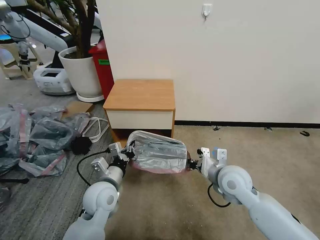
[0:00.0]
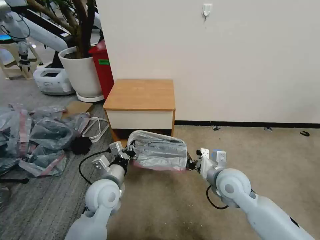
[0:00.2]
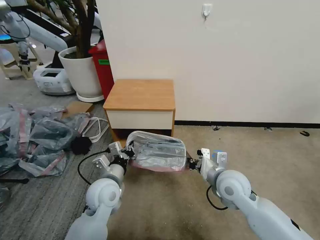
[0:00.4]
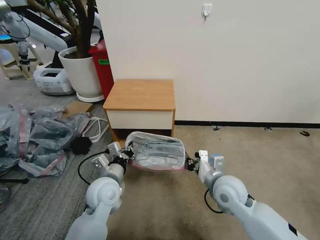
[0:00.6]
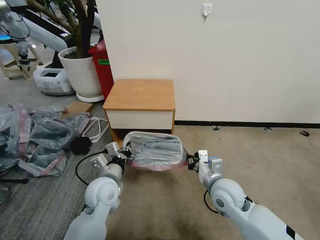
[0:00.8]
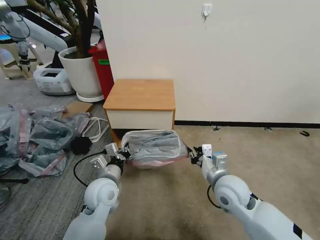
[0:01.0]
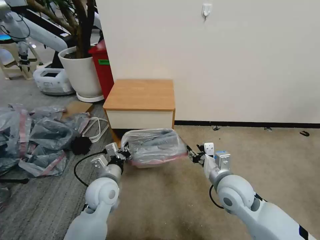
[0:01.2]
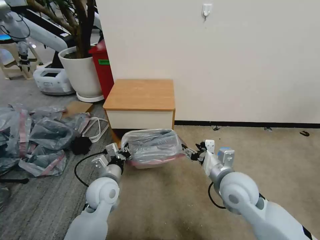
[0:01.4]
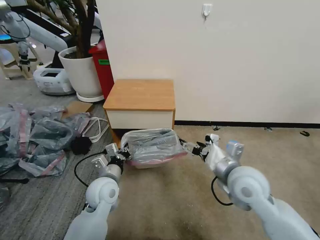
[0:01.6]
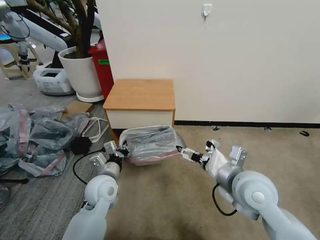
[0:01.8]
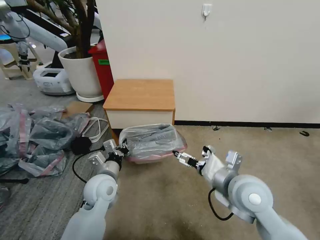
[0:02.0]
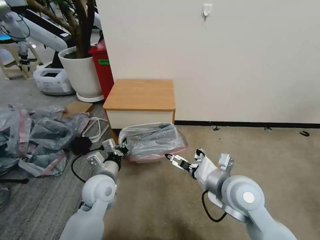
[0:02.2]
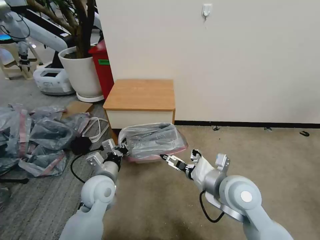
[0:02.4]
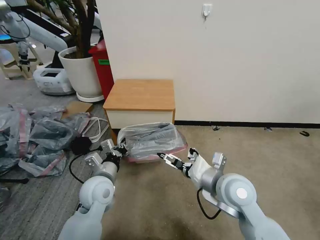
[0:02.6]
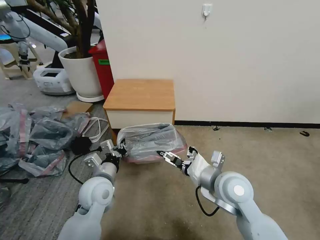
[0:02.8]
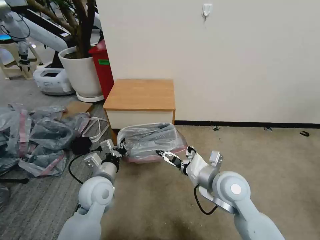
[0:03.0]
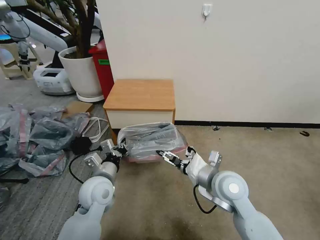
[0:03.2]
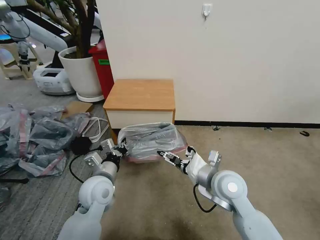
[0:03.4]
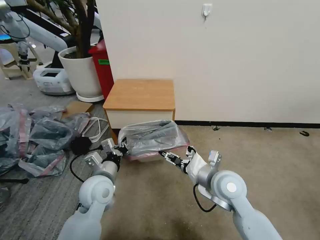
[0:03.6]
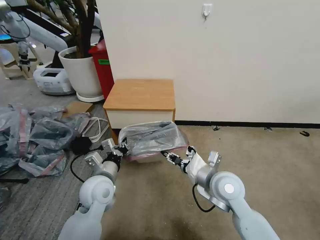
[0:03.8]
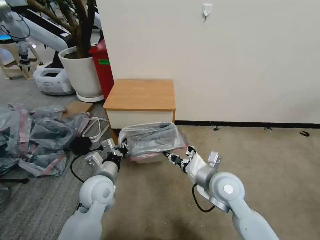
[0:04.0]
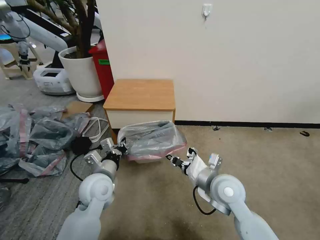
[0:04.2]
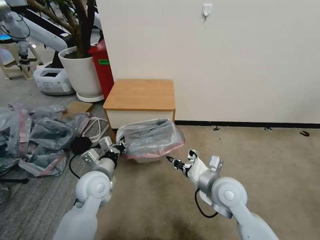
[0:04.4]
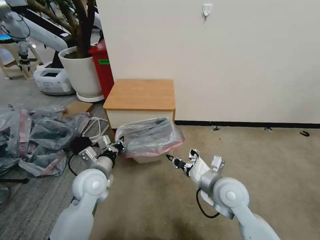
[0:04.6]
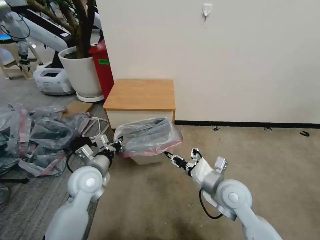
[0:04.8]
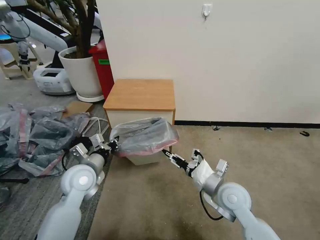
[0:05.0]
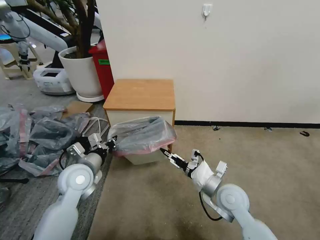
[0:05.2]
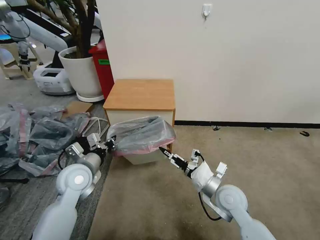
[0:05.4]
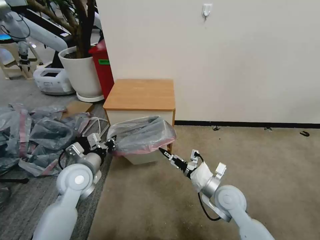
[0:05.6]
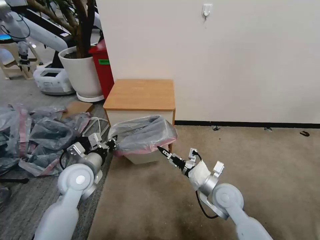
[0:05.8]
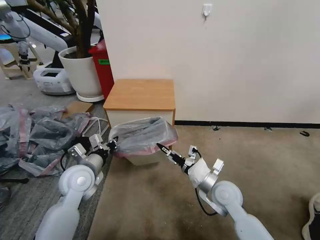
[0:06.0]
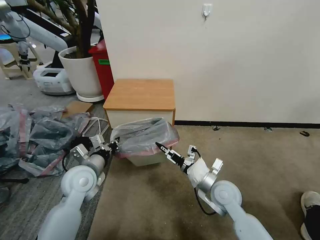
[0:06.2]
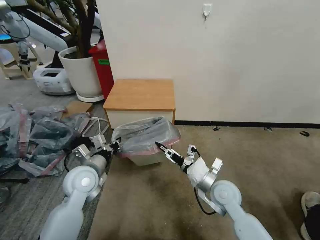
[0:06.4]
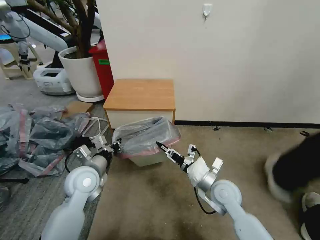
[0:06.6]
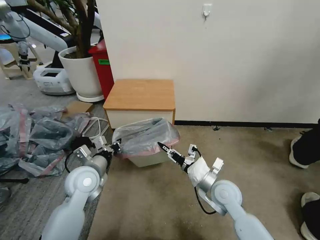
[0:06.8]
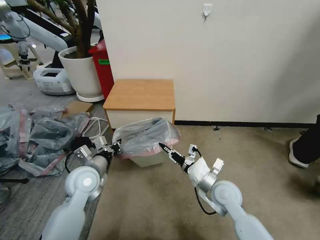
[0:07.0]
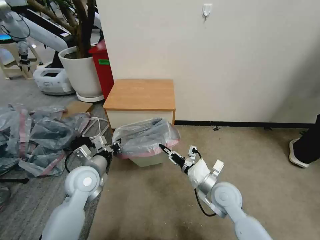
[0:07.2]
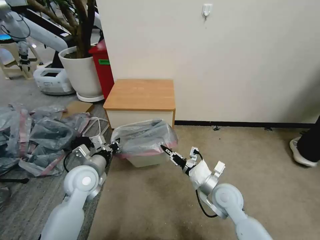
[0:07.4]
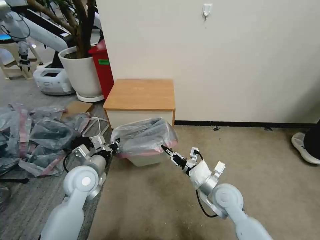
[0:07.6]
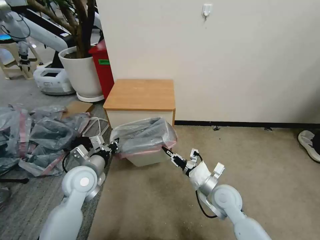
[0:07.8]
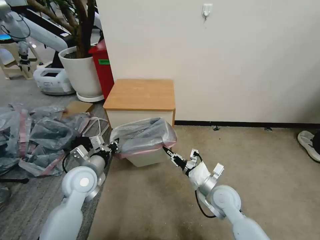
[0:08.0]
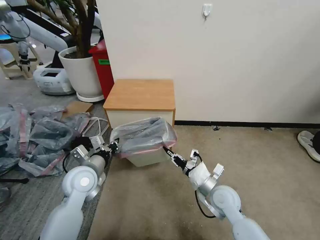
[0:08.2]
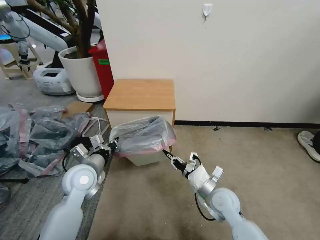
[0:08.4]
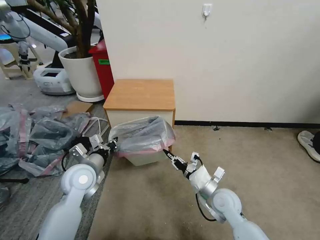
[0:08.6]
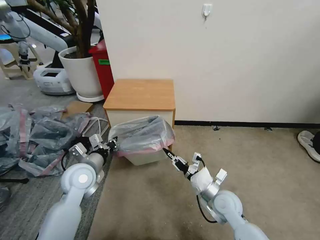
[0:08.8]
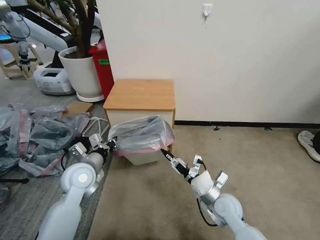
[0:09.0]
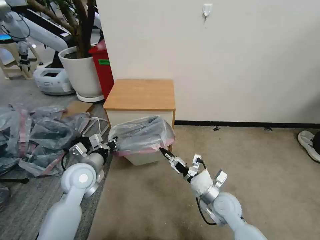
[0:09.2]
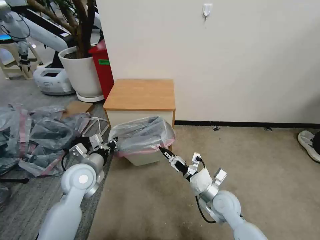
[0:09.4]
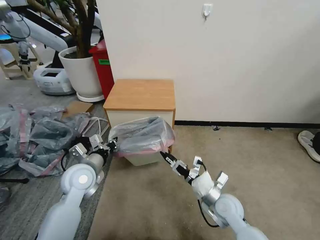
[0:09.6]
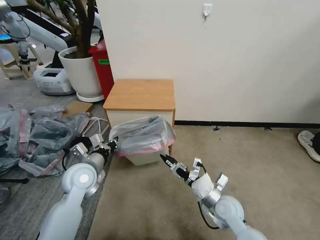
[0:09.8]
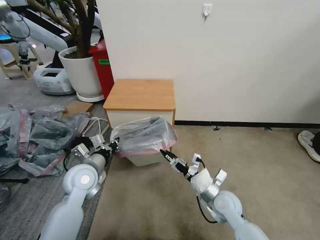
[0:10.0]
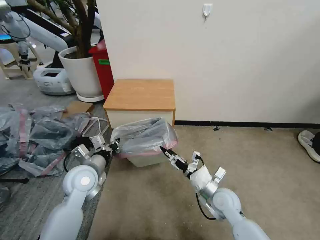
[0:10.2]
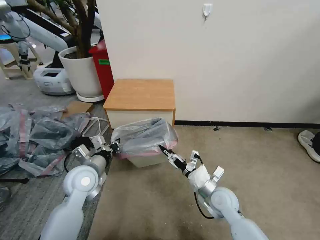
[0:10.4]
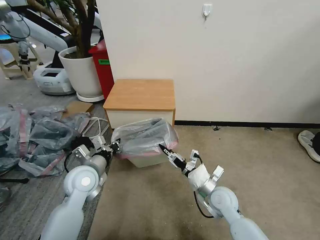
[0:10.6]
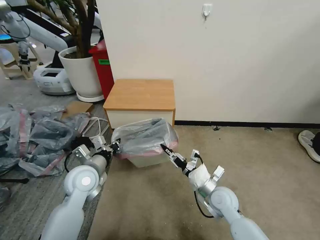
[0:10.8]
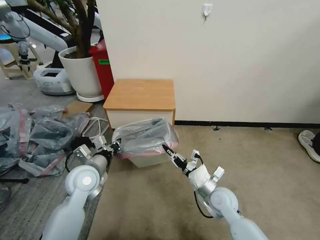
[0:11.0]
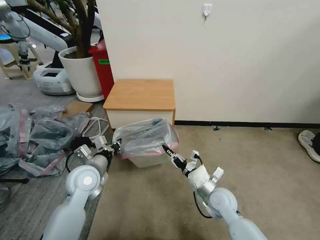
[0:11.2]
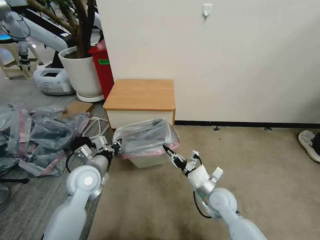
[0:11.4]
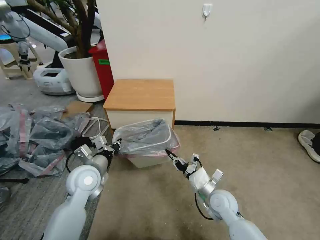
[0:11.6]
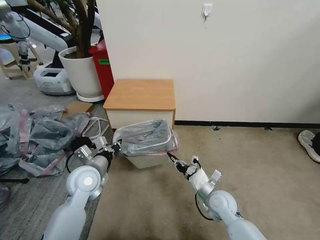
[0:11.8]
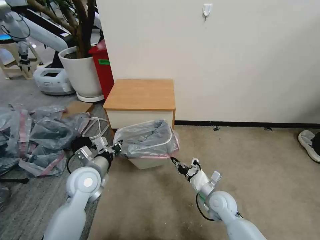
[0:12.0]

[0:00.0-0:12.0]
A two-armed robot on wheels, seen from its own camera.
Task of the whole recording: Pick up the garbage bag from the table and place it over the trash can.
0:00.0 to 0:01.6: The right gripper moves upward, roughly 5 cm, and opens.
0:03.0 to 0:04.4: The right gripper closes up.
0:04.4 to 0:06.0: The left gripper shifts by approximately 5 cm, while the right gripper shifts about 5 cm downward, and opens up.
0:06.0 to 0:07.6: The right gripper closes its fingers.
0:07.6 to 0:10.4: The grippers stay close to where they were, moving slightly.
0:10.4 to 0:12.0: The right gripper ends up some 5 cm from where it was, and closes up.

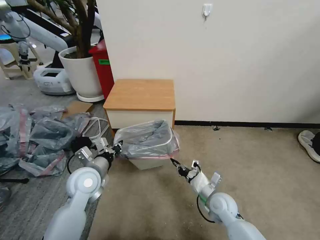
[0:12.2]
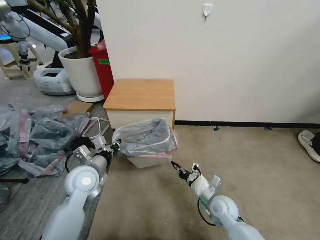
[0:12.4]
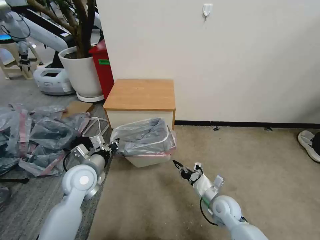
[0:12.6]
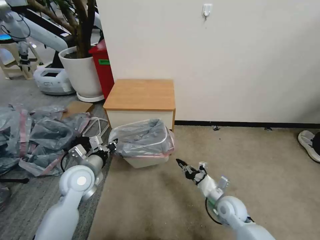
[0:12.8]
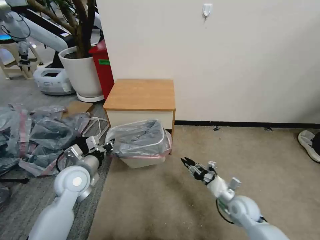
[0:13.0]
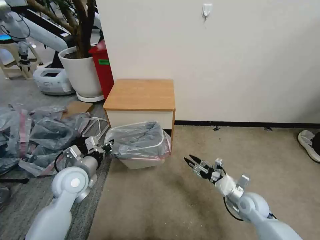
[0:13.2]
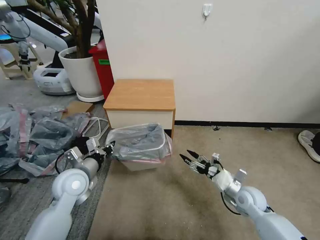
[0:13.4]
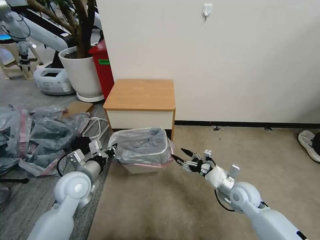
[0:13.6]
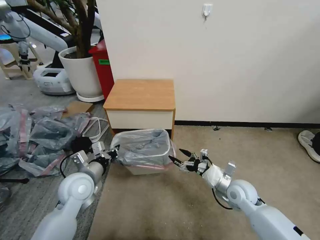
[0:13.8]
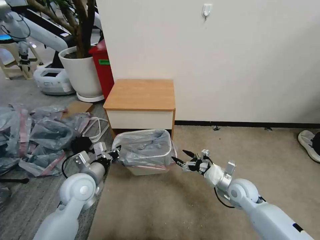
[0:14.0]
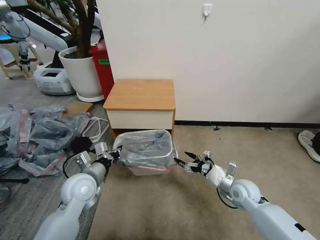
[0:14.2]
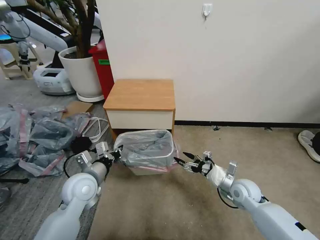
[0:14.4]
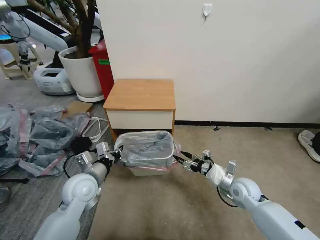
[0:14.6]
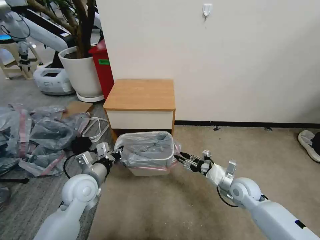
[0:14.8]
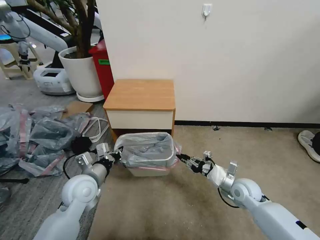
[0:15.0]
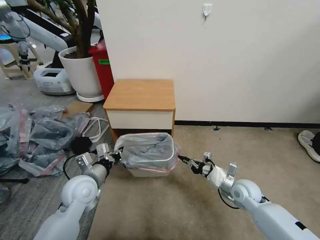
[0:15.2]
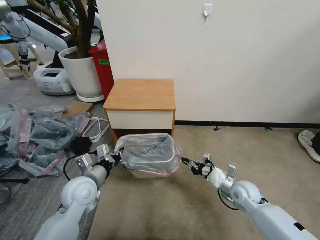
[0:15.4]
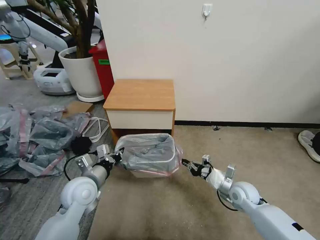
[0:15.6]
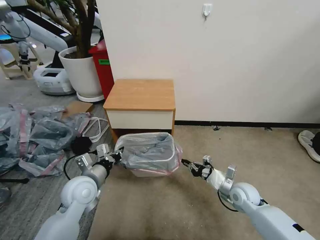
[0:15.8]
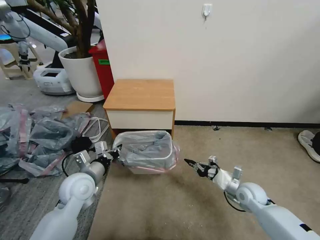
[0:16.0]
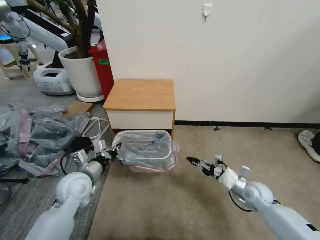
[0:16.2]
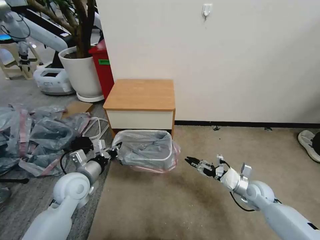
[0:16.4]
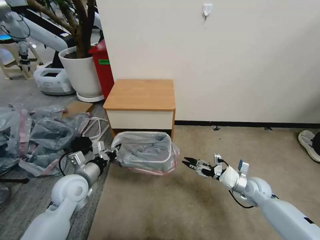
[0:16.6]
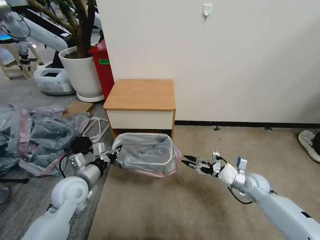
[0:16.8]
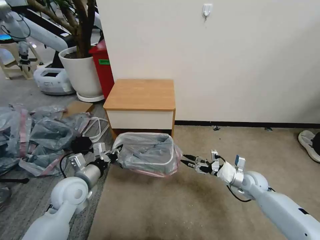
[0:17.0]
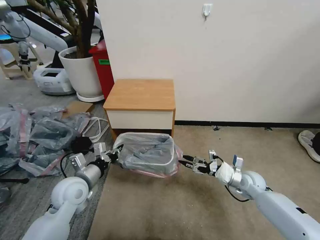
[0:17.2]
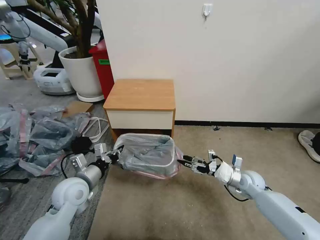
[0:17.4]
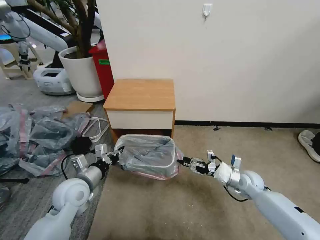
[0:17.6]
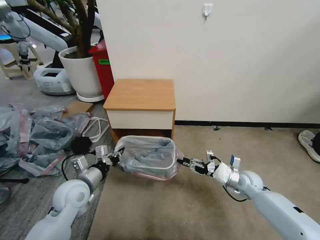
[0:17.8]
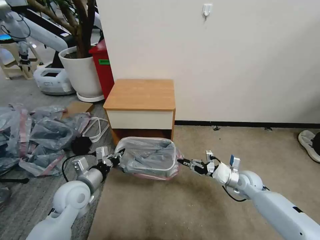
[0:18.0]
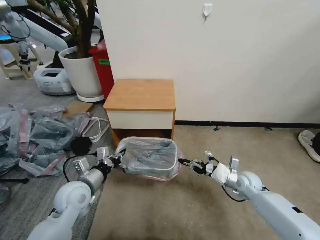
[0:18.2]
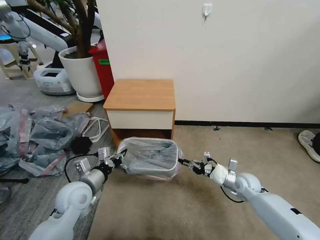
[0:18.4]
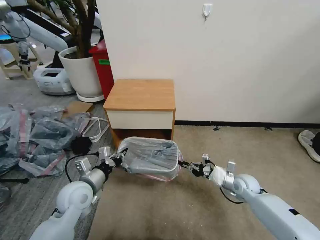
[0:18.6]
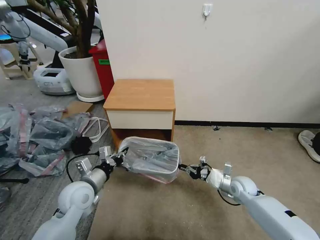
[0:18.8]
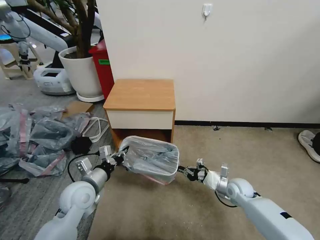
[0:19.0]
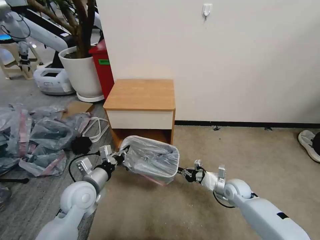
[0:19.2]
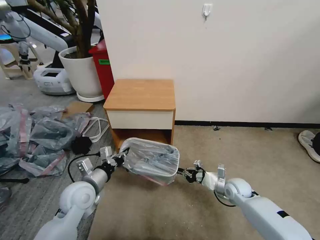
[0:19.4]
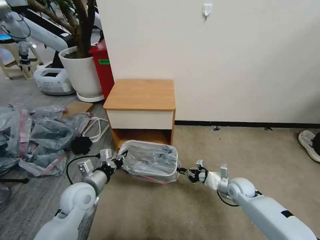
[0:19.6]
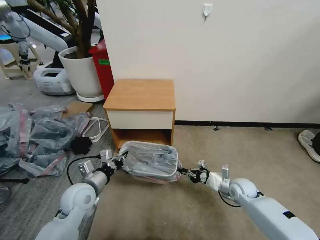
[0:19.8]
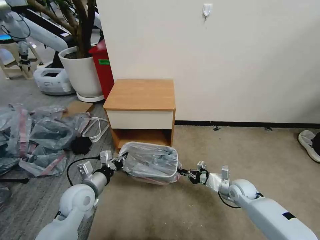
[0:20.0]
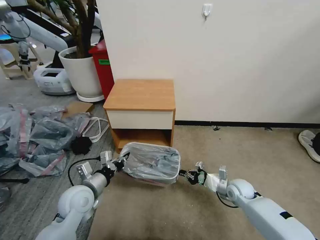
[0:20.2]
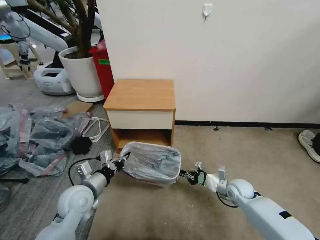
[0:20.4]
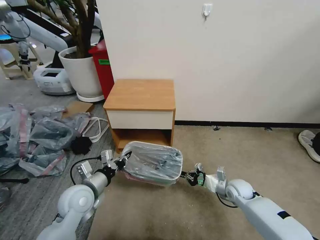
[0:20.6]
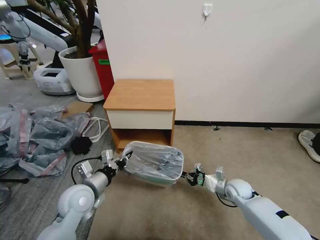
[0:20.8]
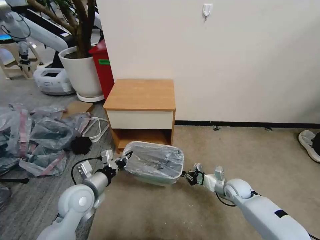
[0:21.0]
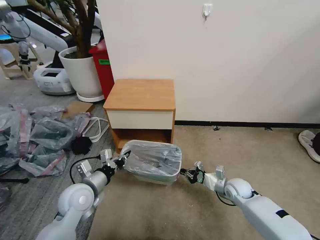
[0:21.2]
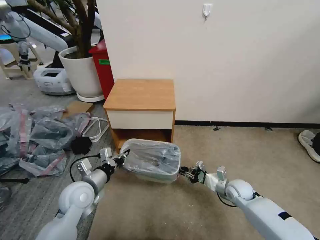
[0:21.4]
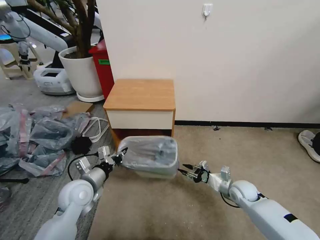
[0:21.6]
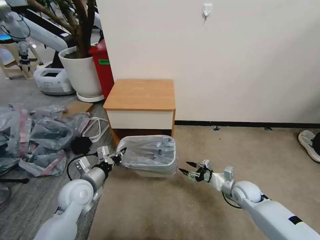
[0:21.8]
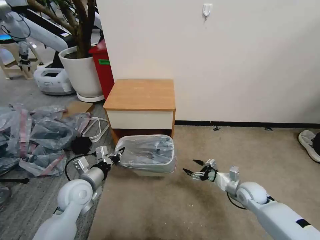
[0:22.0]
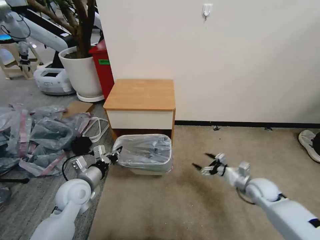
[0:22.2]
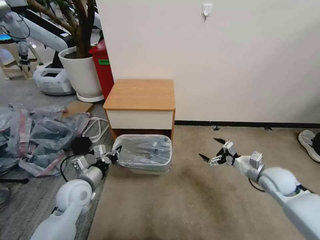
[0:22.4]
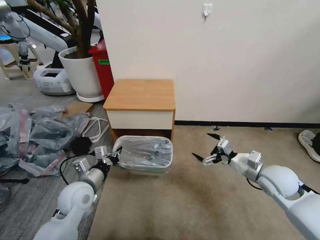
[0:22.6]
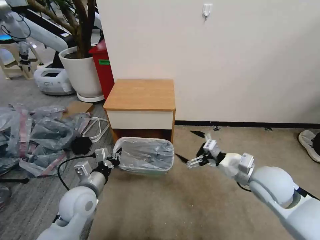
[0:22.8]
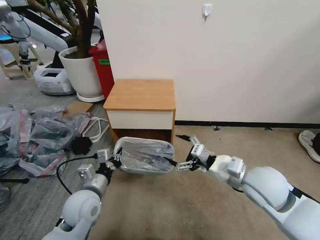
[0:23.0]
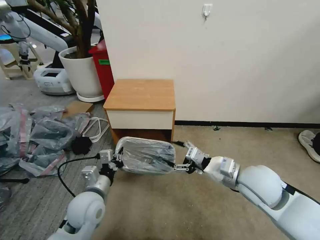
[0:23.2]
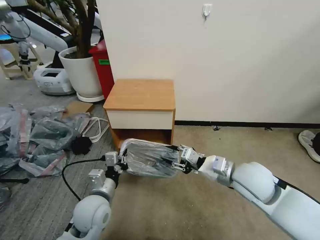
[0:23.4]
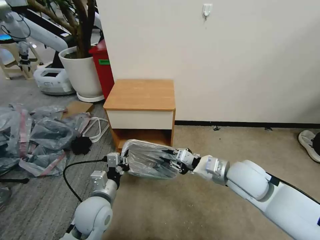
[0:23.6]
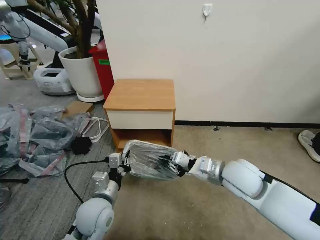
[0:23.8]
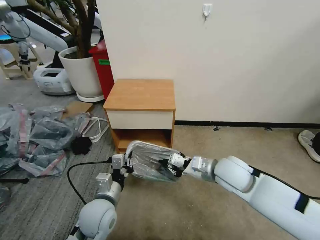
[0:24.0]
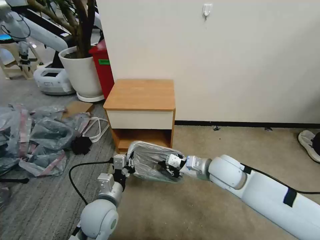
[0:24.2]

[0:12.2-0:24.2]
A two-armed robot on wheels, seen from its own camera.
Task of the whole recording: Pick up the garbage bag from the table and place it over the trash can.
0:12.2 to 0:13.8: The right gripper shifts some 10 cm to the right and upward, and opens up.
0:13.8 to 0:15.2: The right gripper closes up.
0:15.2 to 0:16.6: The right gripper travels to the right by some 5 cm, and opens its fingers.
0:16.6 to 0:18.2: The right gripper closes its fingers.
0:18.2 to 0:19.8: The grippers stay close to where they were, moving slightly.
0:19.8 to 0:21.2: The grippers make only small movements.
0:21.2 to 0:22.6: The right gripper shifts roughly 20 cm upward, and opens up.
0:22.6 to 0:24.2: The left gripper travels to the right by roughly 10 cm; the right gripper is displaced to the left by some 15 cm, and closes.
